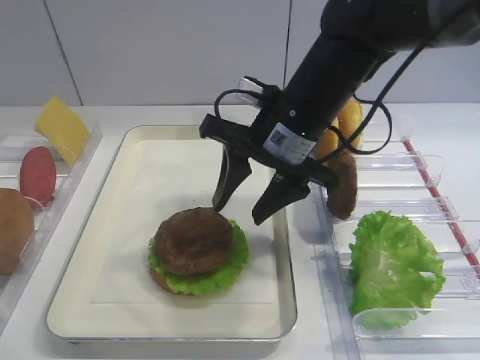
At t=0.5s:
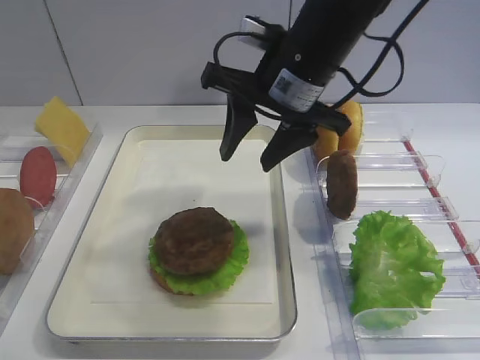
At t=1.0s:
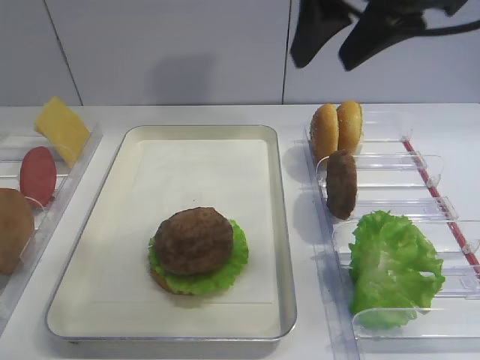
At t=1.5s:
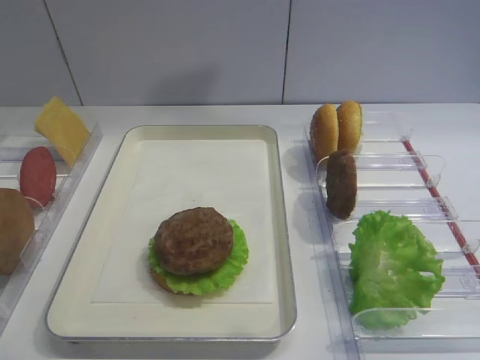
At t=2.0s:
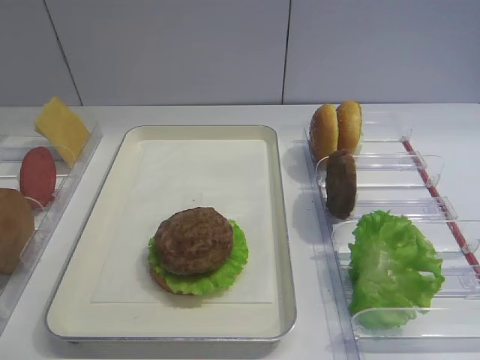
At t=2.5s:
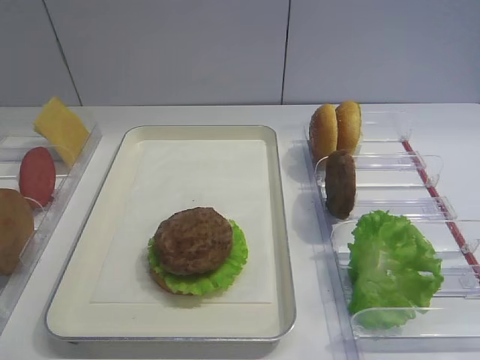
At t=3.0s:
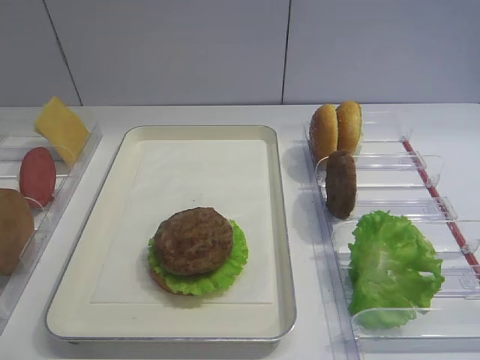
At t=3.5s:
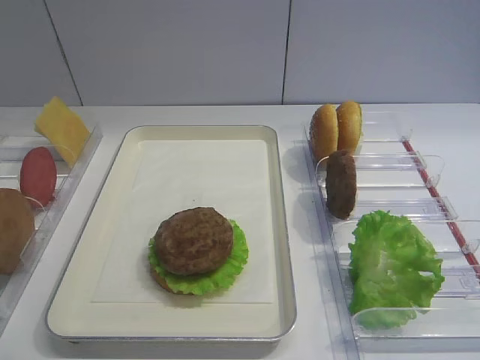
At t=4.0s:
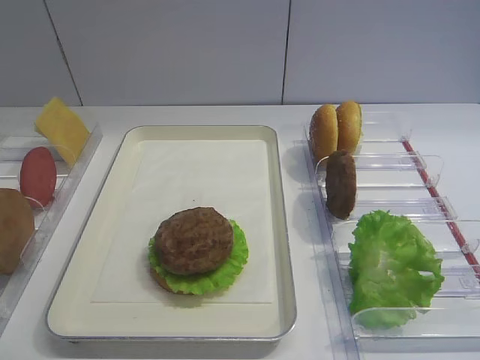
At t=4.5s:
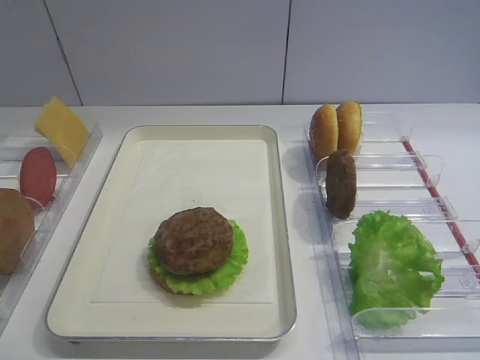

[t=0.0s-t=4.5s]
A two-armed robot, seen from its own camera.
t=0.0s to t=2.0s: The right gripper heads backward, to the right and upward, covering about 40 cm.

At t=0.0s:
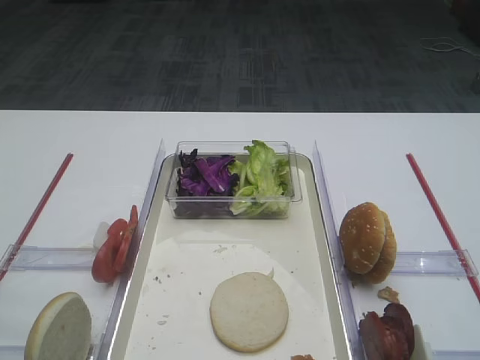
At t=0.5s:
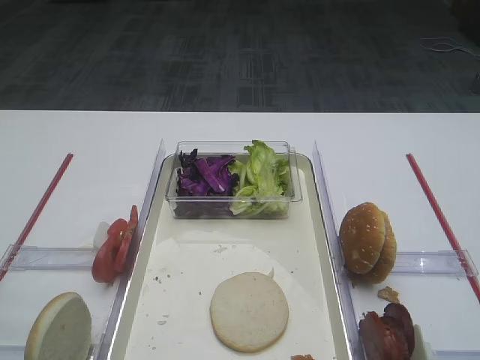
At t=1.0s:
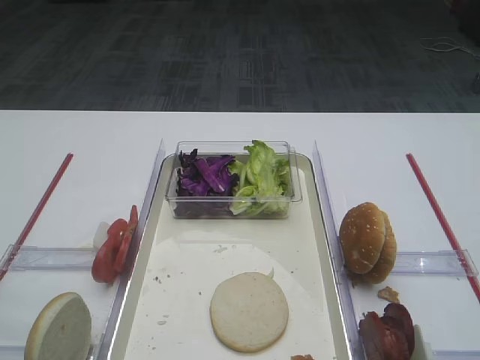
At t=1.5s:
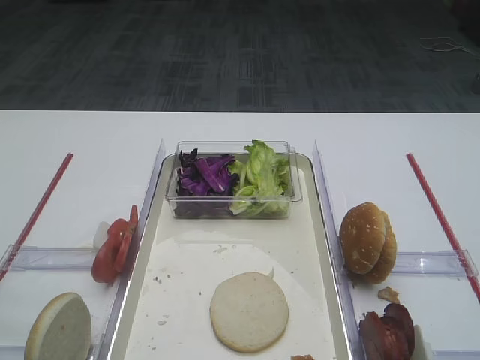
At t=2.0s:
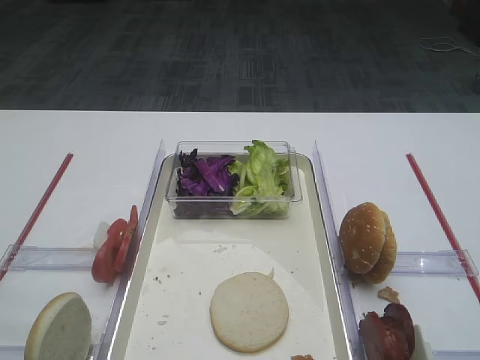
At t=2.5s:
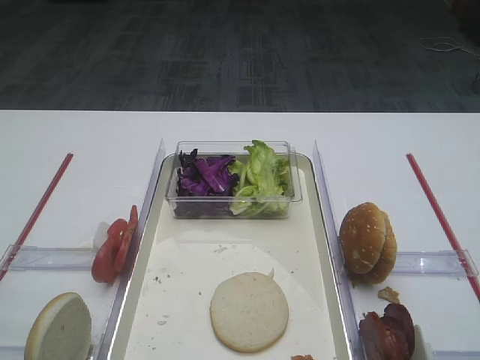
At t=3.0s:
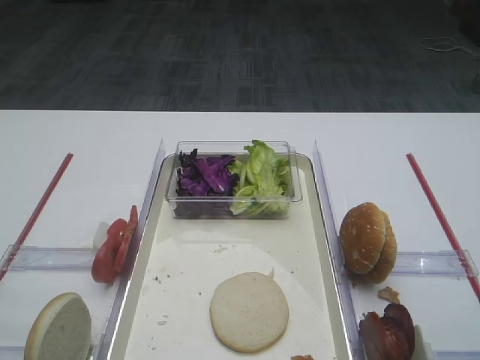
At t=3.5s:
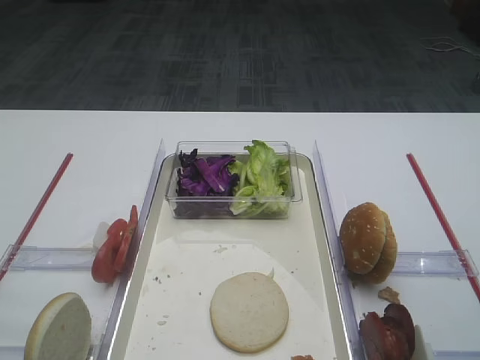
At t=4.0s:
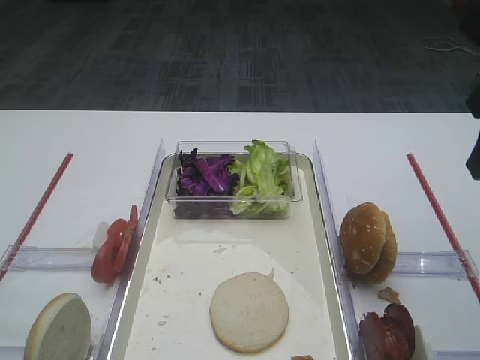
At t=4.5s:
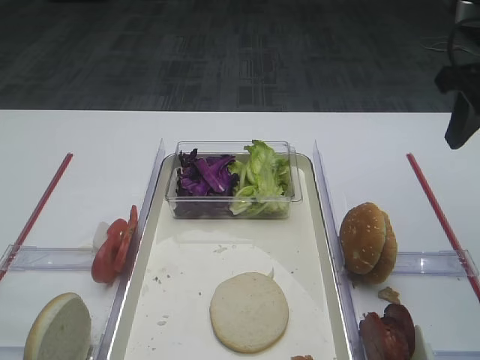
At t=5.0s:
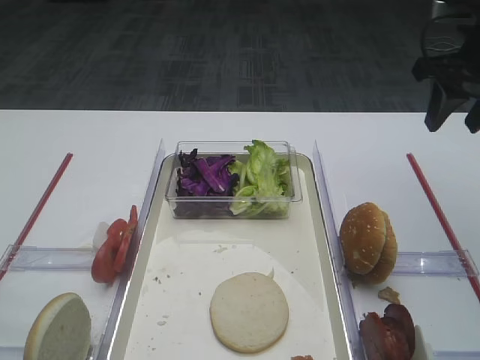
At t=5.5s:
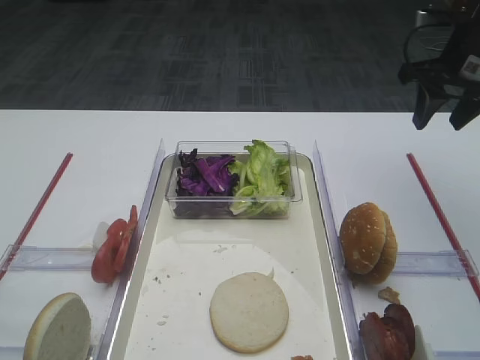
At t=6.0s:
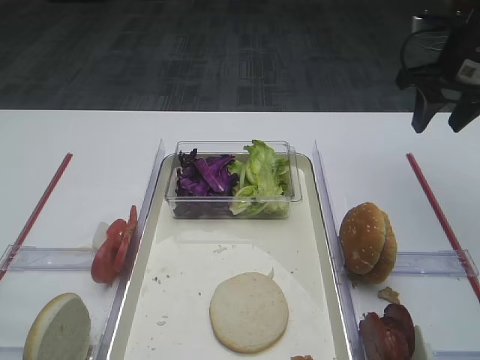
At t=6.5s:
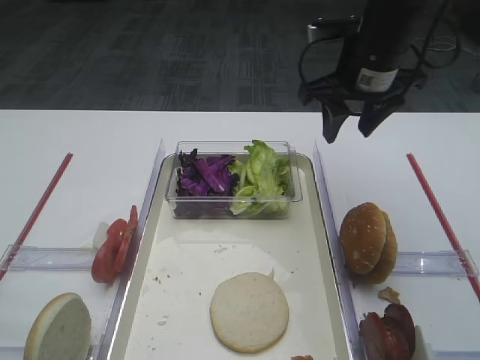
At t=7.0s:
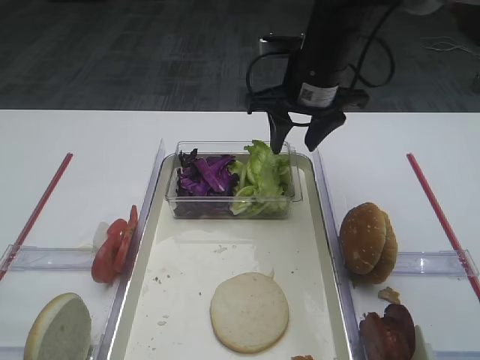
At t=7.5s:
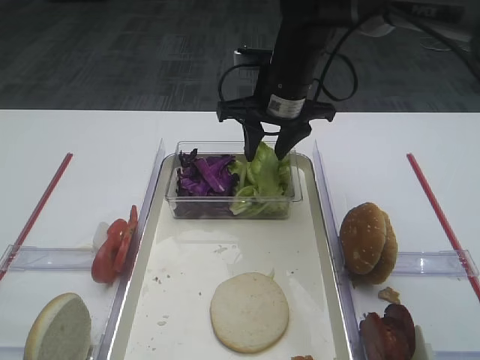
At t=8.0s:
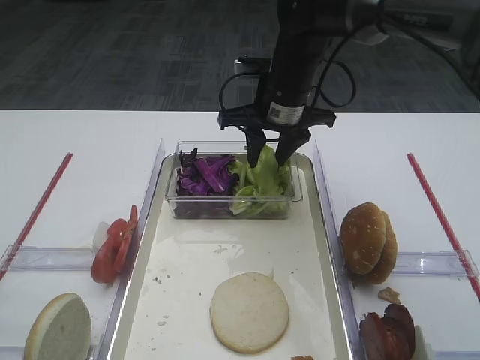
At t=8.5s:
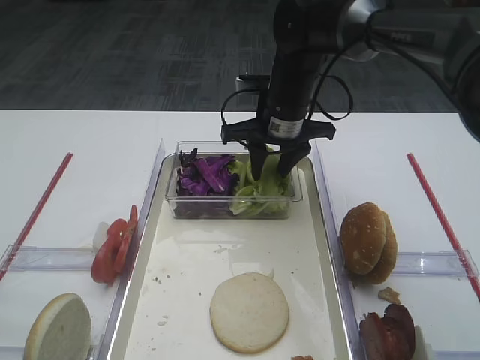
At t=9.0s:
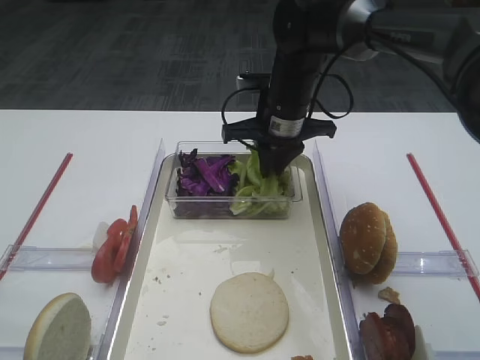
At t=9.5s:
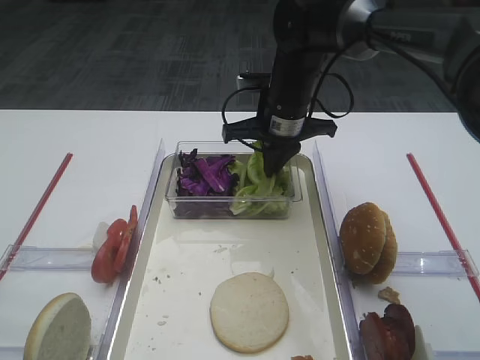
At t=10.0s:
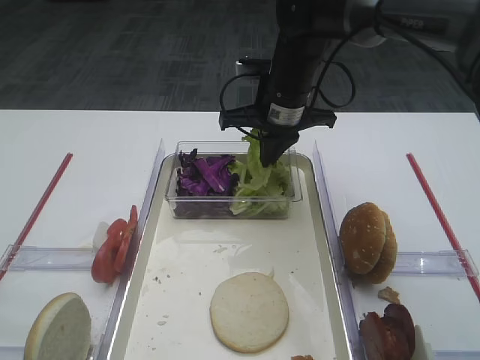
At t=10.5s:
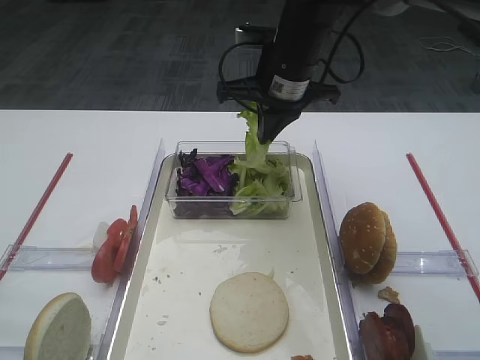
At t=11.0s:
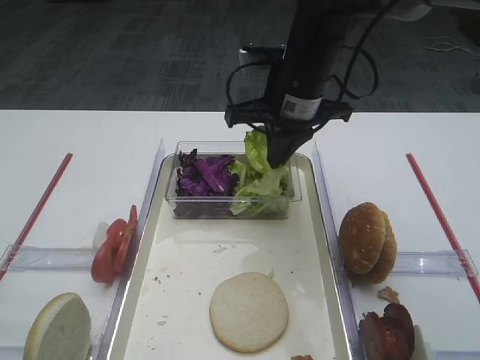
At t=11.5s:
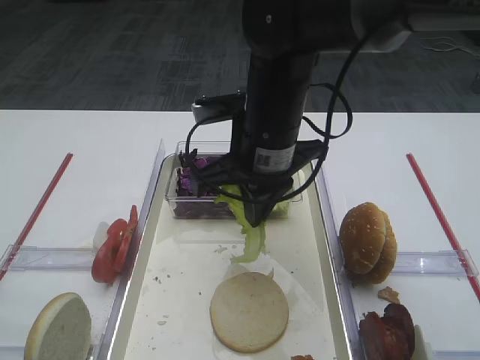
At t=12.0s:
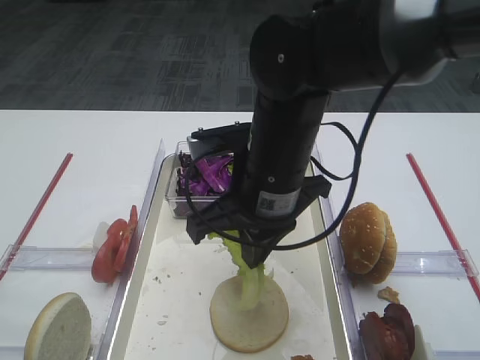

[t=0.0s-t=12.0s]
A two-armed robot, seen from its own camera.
Step, t=0.0s to t=10.0s: Pick up the lettuce leaf with the right gripper.
t=2.0s to t=4.0s: The right gripper shifts about 25 cm forward.
t=4.0s to t=6.0s: The right gripper goes roughly 20 cm forward.
t=6.0s to t=8.0s: The right gripper is displaced to the left by approximately 20 cm.
t=8.0s to t=10.0s: The right gripper closes its fingers.
t=10.0s to t=12.0s: The right gripper travels backward by roughly 15 cm.

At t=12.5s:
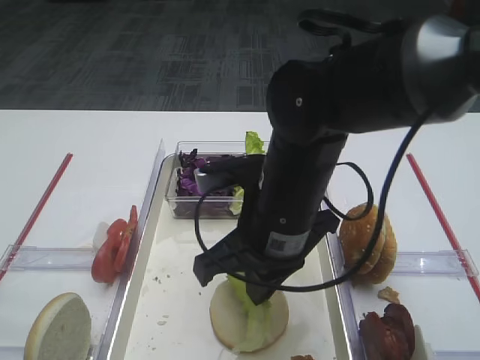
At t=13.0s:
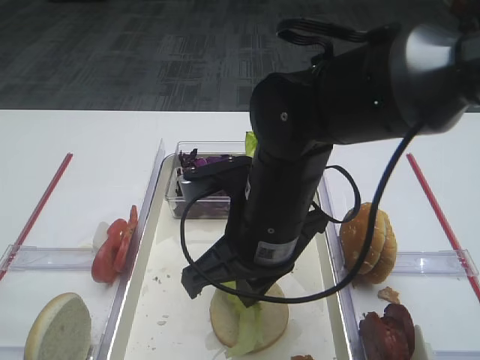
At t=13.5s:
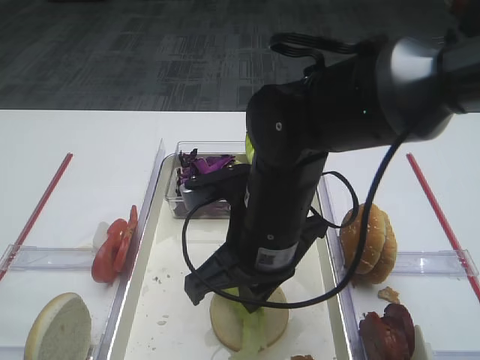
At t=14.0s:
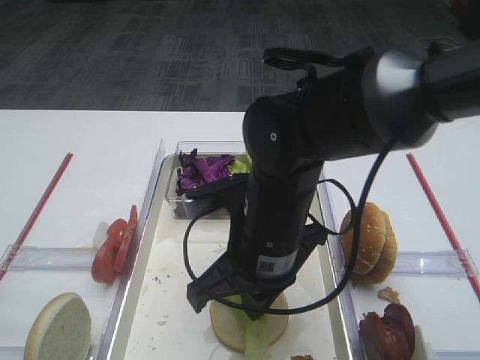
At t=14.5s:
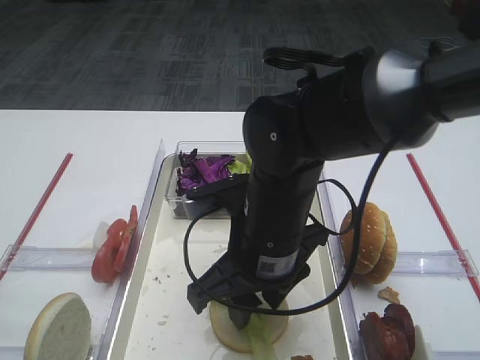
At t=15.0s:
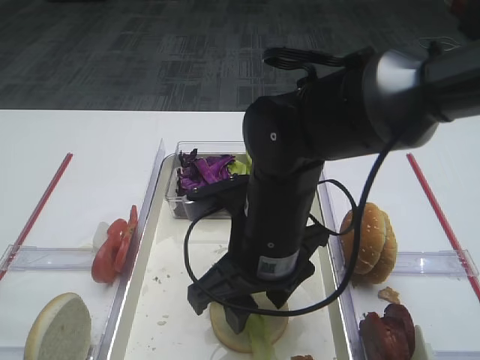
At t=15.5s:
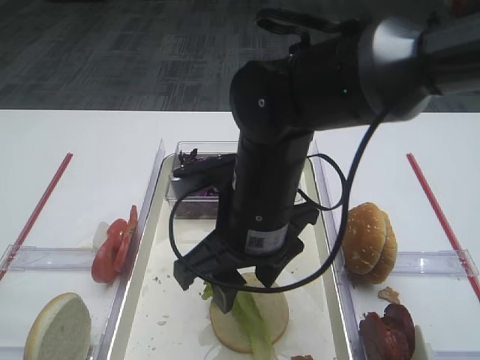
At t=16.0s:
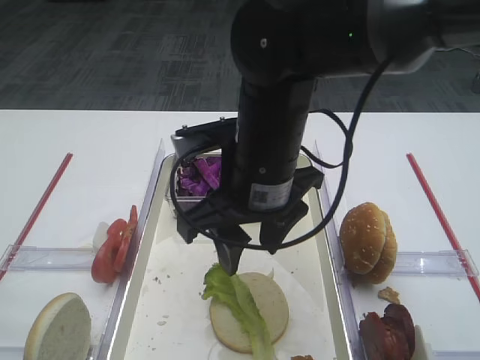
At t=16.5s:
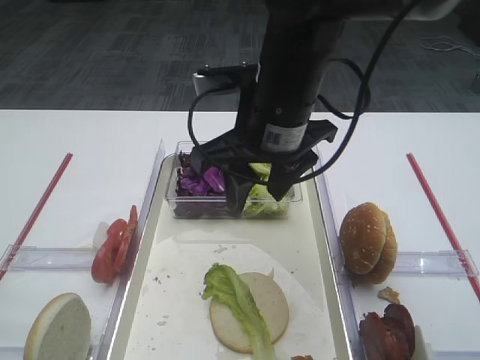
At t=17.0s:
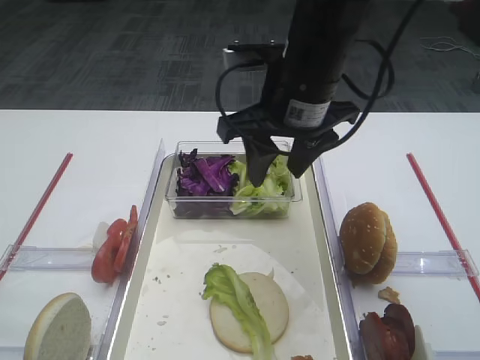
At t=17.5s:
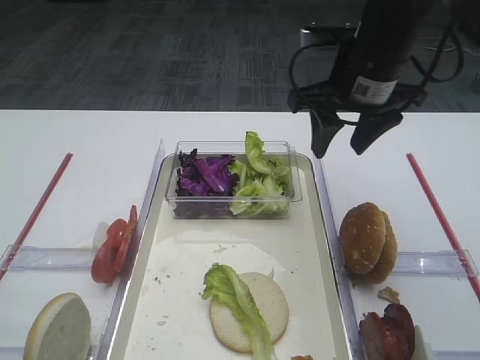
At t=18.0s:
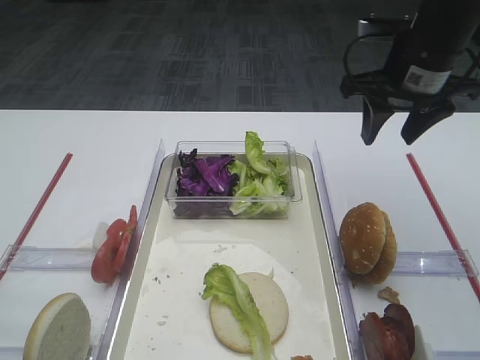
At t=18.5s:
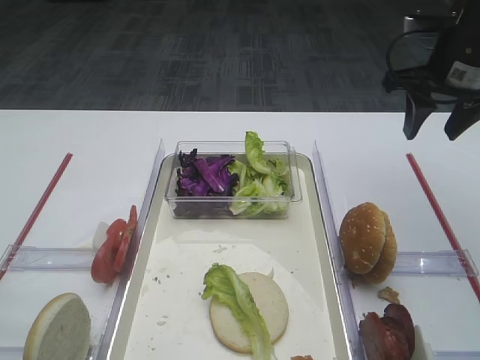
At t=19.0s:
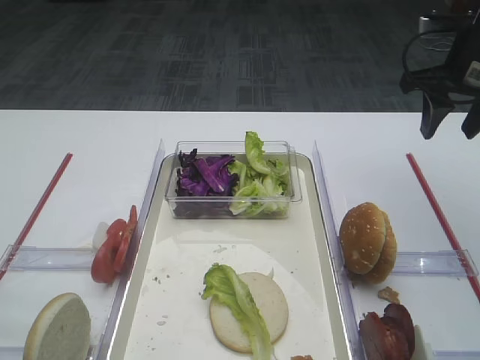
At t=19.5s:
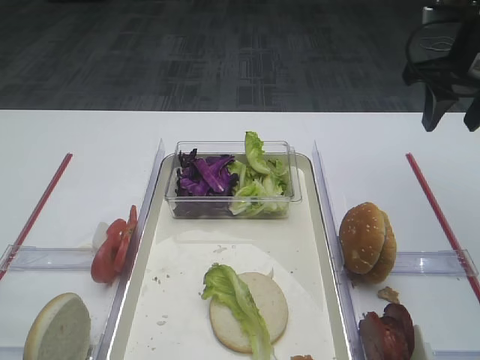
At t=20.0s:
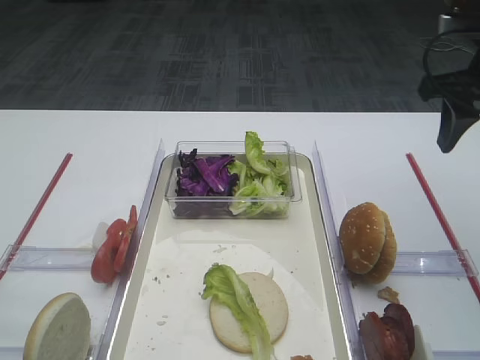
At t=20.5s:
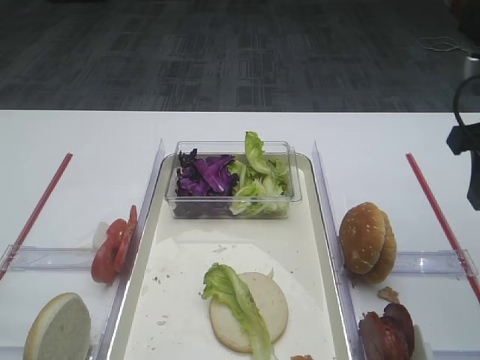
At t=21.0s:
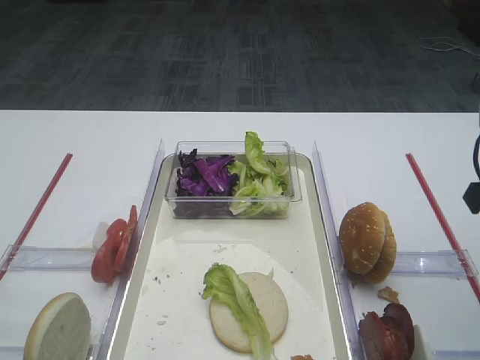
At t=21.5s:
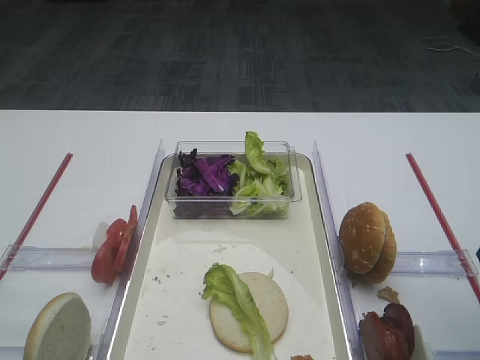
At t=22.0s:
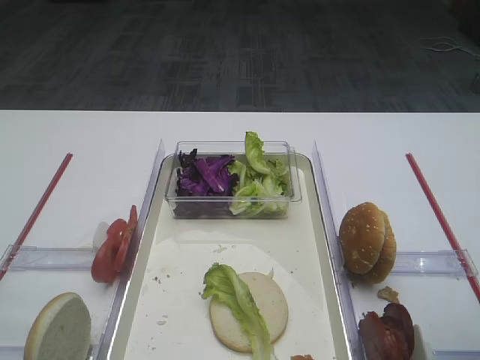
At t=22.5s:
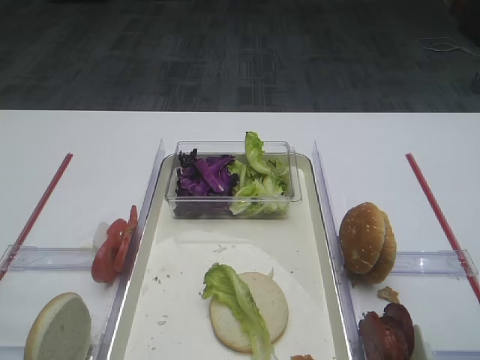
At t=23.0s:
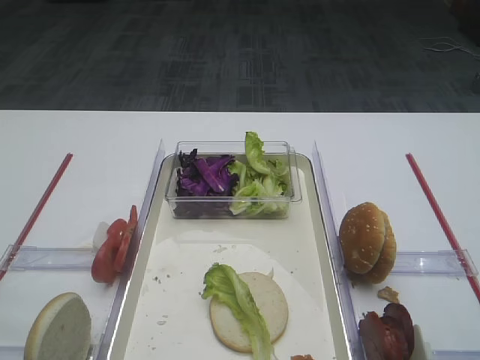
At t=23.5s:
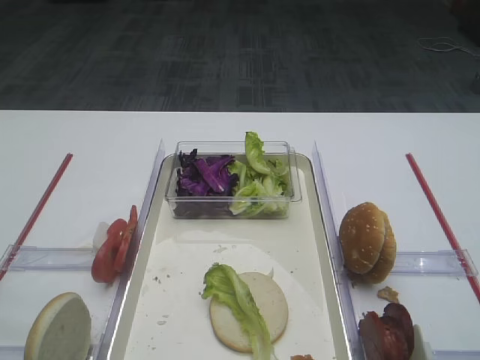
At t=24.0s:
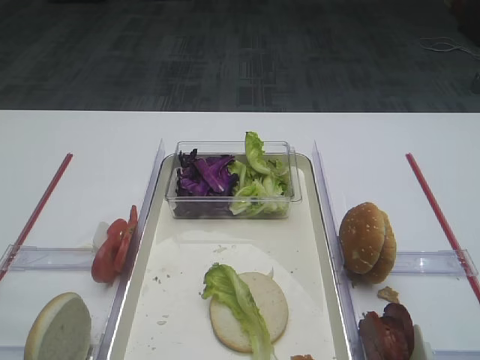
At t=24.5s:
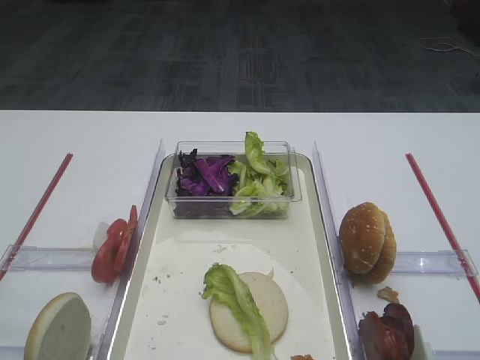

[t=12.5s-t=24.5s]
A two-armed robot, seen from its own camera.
Step, t=12.5s to t=16.0s: Place the lettuce leaf on the bread slice with the right gripper.
t=12.5s to t=14.5s: The right gripper opens up.
t=14.5s to t=16.5s: The right gripper goes roughly 10 cm upward and forward.
t=16.5s to t=18.5s: The right gripper shifts roughly 25 cm to the right and forward.
t=18.5s to t=20.5s: The right gripper moves backward, about 10 cm.
t=20.5s to t=22.5s: The right gripper shifts some 15 cm backward.
